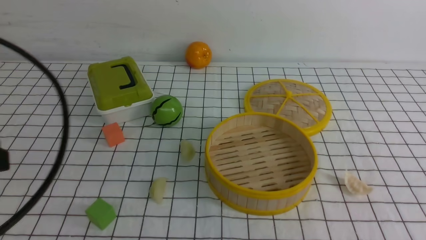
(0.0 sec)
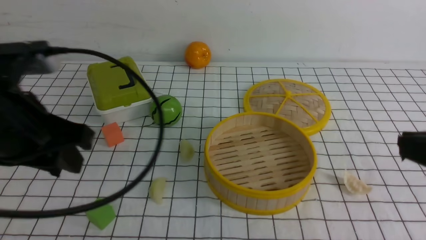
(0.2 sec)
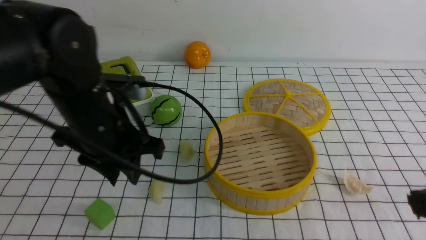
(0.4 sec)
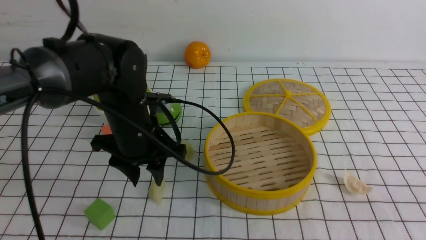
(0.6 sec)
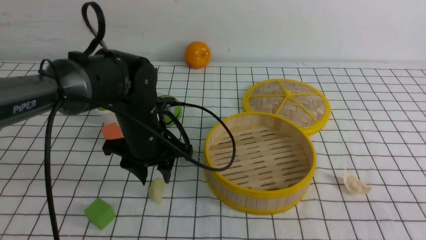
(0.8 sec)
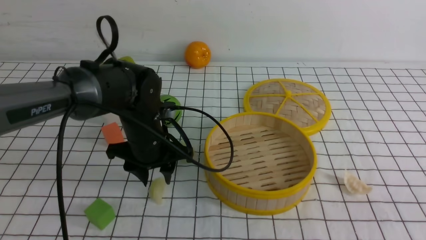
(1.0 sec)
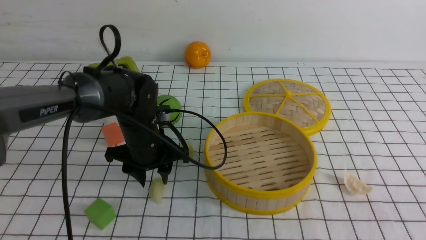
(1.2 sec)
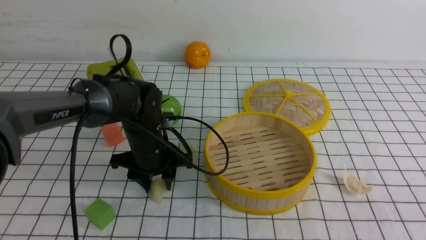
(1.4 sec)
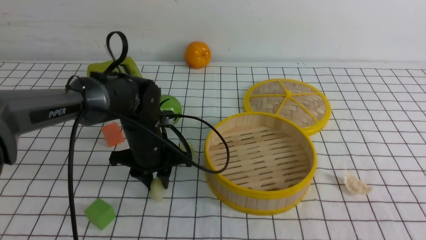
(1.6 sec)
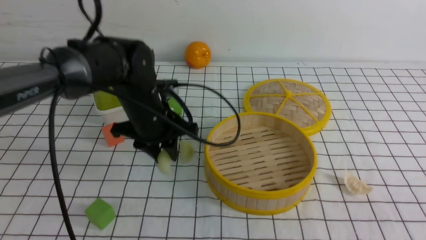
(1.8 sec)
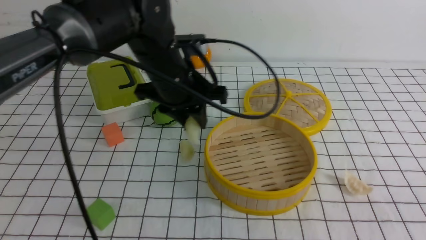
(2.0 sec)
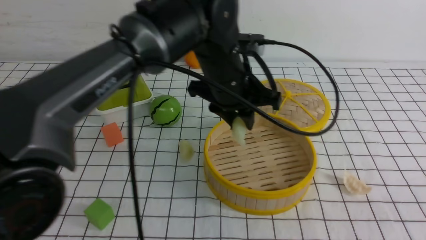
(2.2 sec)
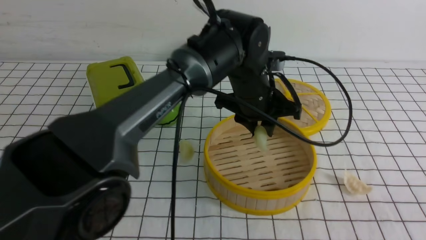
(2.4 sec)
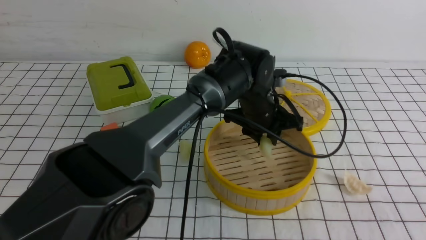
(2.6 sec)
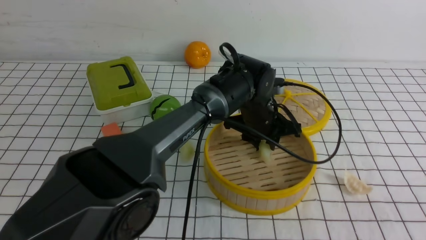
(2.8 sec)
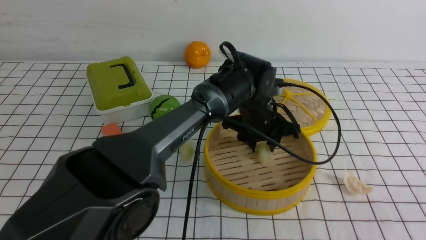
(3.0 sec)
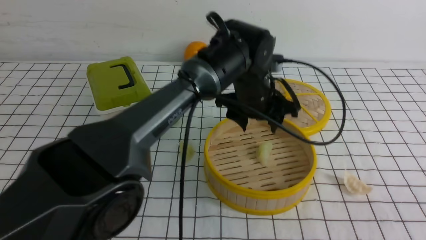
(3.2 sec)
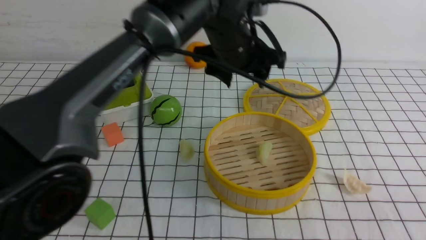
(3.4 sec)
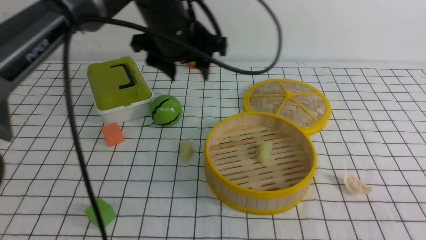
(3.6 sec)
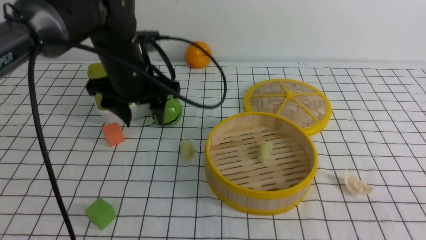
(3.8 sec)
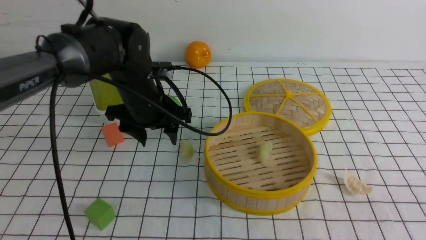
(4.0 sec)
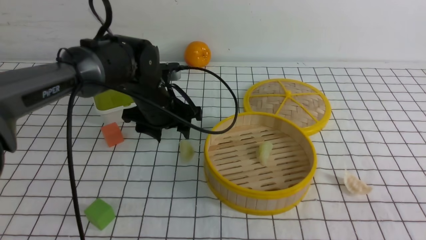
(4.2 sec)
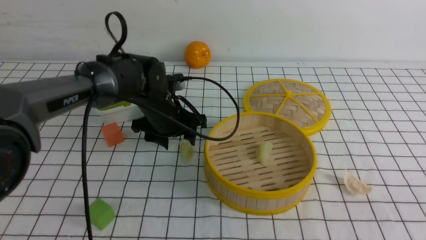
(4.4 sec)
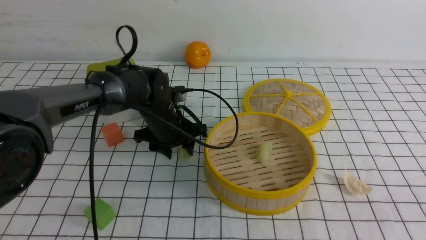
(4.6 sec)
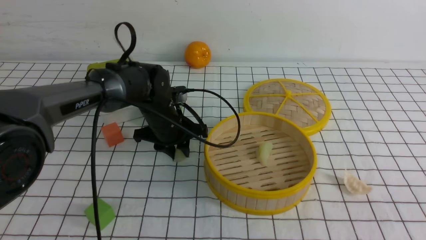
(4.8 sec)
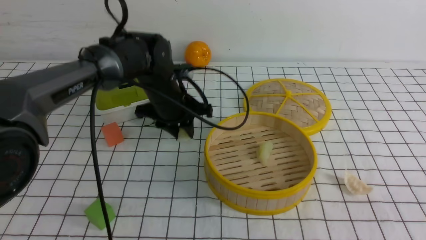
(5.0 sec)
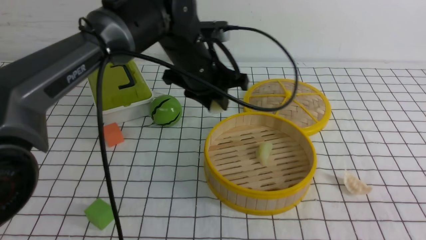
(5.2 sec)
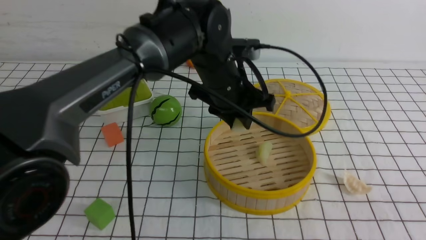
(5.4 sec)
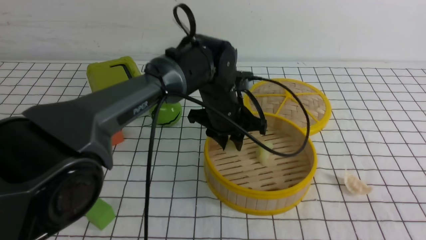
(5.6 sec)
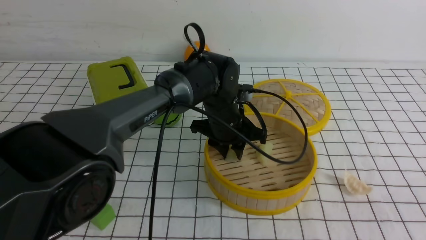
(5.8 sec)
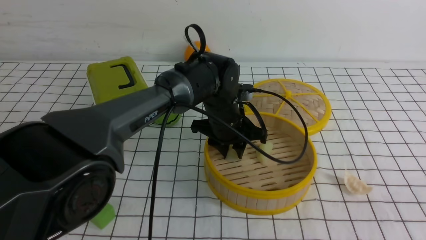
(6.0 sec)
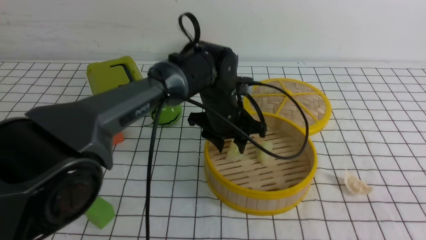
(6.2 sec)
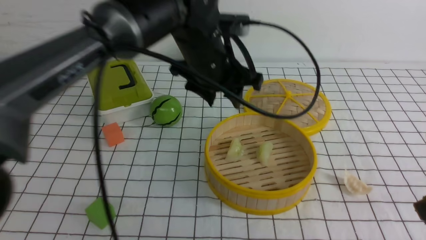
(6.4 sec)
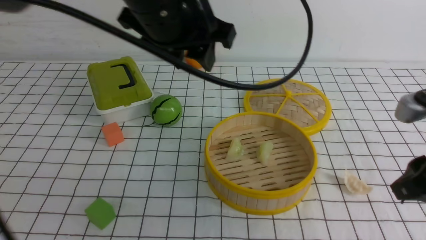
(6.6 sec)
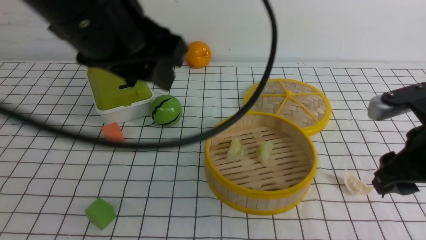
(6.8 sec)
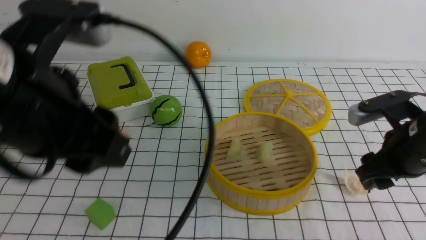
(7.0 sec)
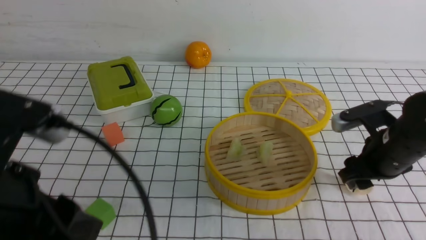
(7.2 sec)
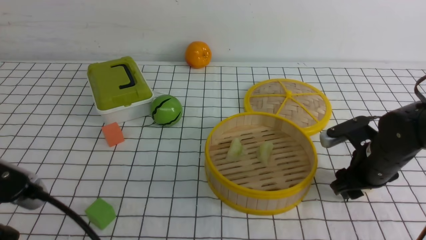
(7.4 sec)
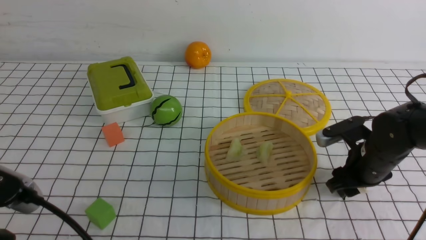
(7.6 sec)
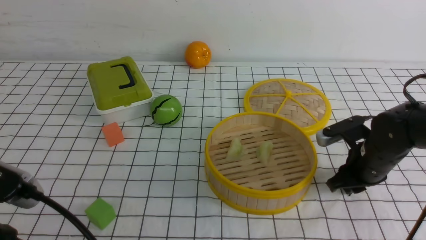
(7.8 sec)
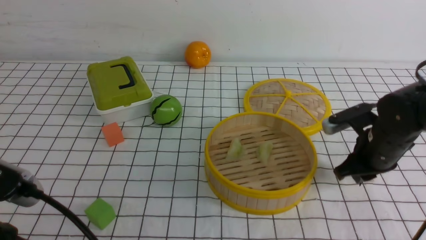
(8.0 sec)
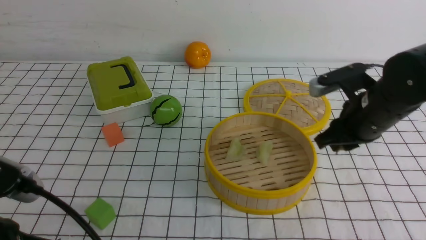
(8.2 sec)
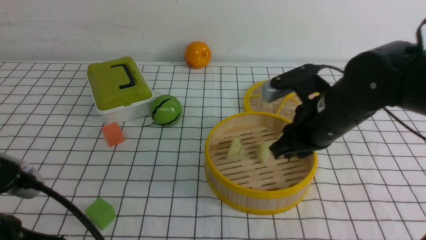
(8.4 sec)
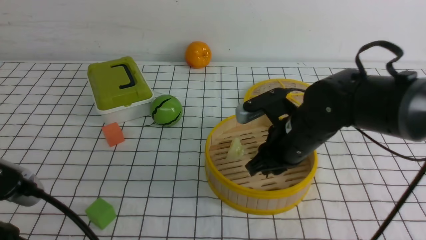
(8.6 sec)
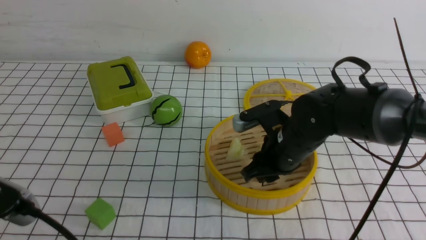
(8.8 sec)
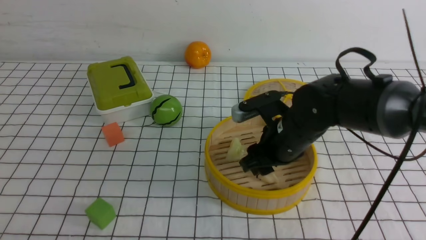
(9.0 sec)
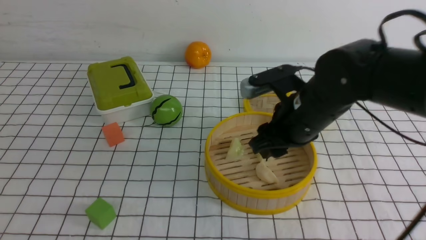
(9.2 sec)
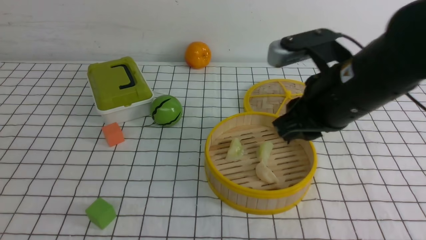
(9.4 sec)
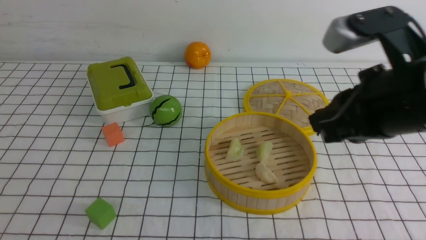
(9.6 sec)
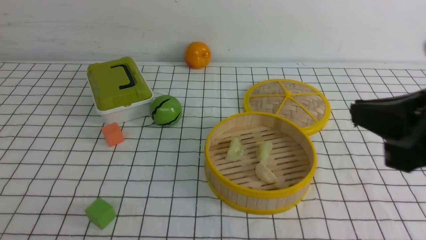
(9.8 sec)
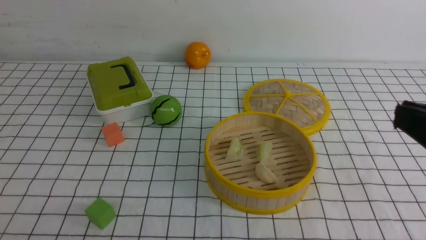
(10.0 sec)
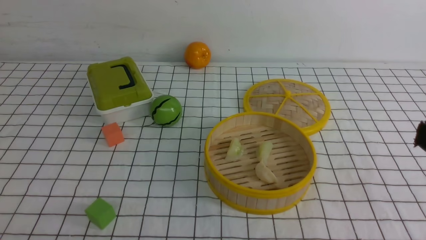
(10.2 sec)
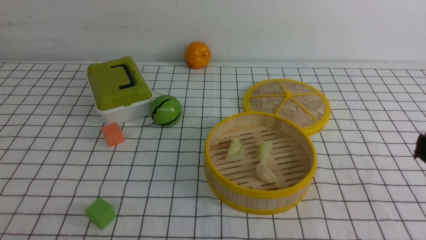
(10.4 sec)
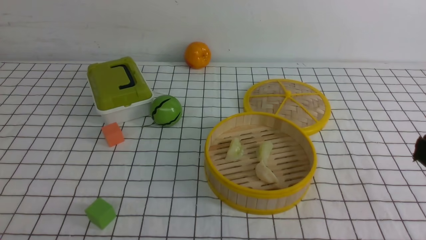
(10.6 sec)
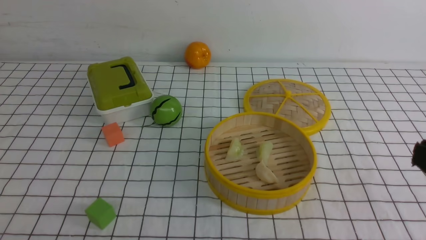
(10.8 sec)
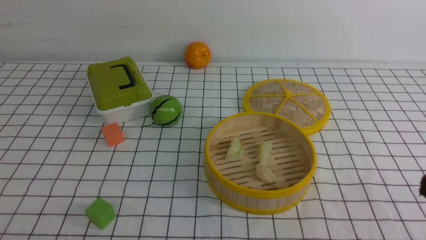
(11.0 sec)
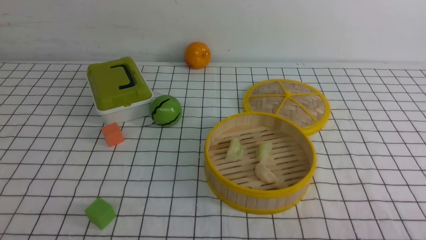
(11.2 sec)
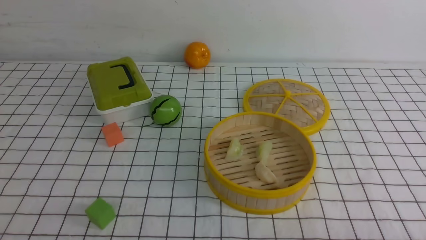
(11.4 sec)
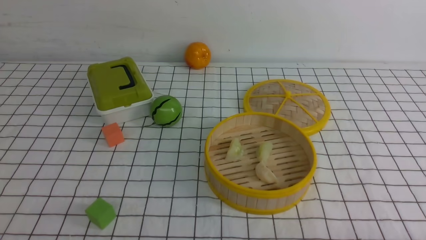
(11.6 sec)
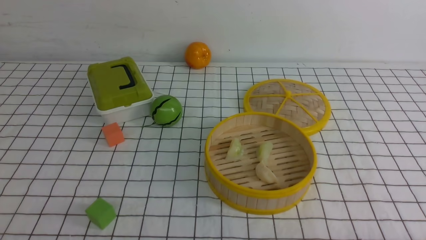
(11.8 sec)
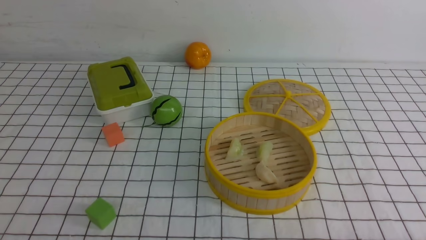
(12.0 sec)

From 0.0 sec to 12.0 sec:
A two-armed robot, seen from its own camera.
Task of the whole recording: put the dumplings into the steamer on the table with the white tablecloth.
Step, from 2.0 sec to 3.4 sec: use the left arm to put the dumpling into the steamer.
Step, from 3.8 sec to 5.2 sec: use the left arm to grab a dumpling.
Step, from 5.6 sec to 6.4 sec: use the left arm to put the dumpling into the steamer.
Step, from 6.6 sec to 8.2 sec: use the right arm to grab a dumpling.
Step, from 8.4 sec to 9.4 sec: use the right arm to put the dumpling into the steamer.
From 0.0 sec to 1.6 sec: The left gripper shifts some 30 cm forward, downward and to the right.
From 1.6 sec to 3.0 sec: The left gripper shifts roughly 20 cm to the right.
From 3.0 sec to 4.4 sec: The left gripper shifts approximately 15 cm to the left.
From 4.4 sec to 6.0 sec: The left gripper moves to the right, about 10 cm, and closes up.
From 6.0 sec to 7.6 sec: The right gripper heads forward and downward, covering roughly 30 cm, and opens up; the left gripper moves backward and to the left, about 40 cm.
From 7.6 sec to 9.0 sec: The right gripper heads to the left and upward, covering approximately 15 cm, and closes and opens again.
From 9.0 sec to 10.4 sec: The left gripper changes place by about 5 cm. Meanwhile the right gripper travels backward, to the right and upward by approximately 30 cm, and closes its fingers.

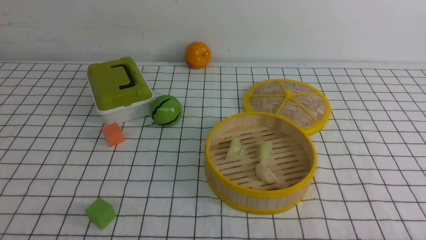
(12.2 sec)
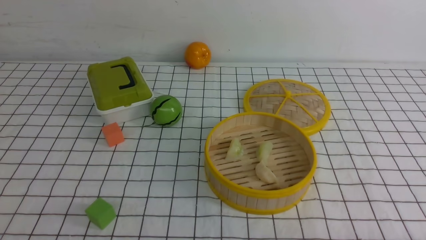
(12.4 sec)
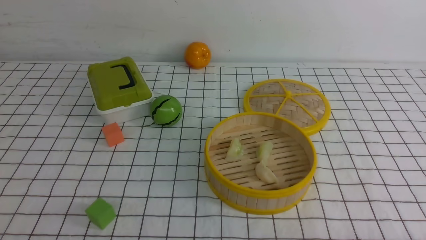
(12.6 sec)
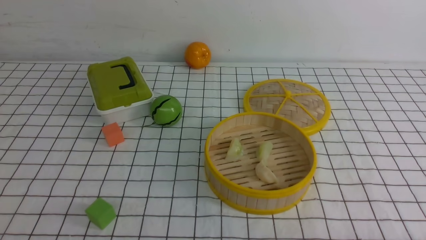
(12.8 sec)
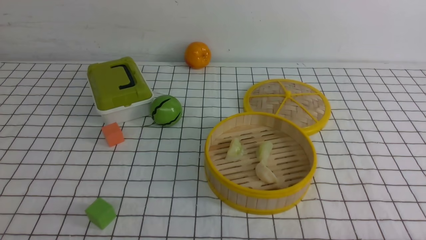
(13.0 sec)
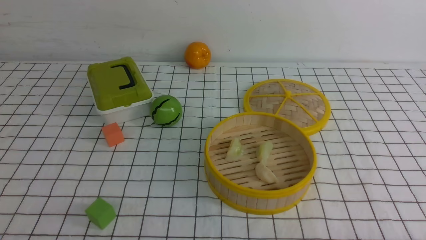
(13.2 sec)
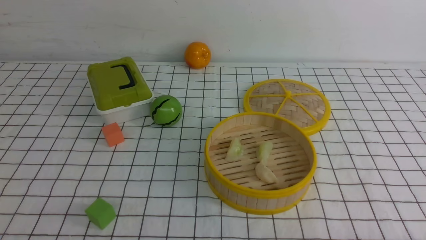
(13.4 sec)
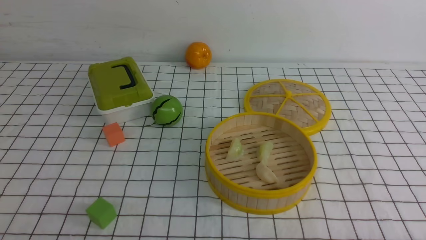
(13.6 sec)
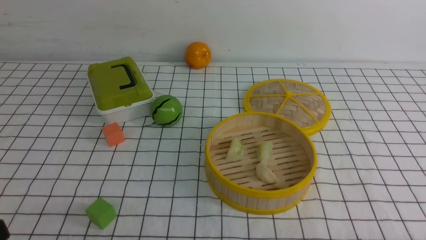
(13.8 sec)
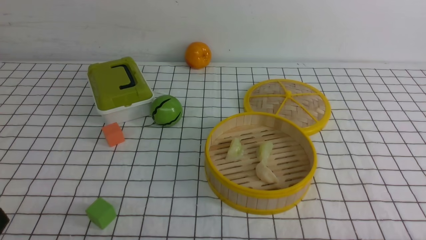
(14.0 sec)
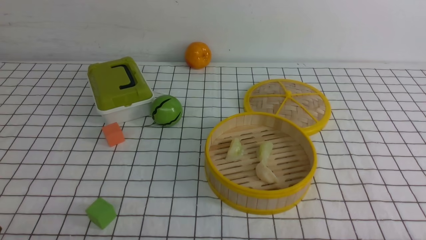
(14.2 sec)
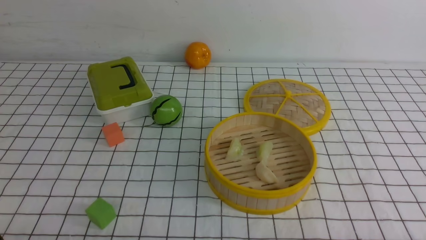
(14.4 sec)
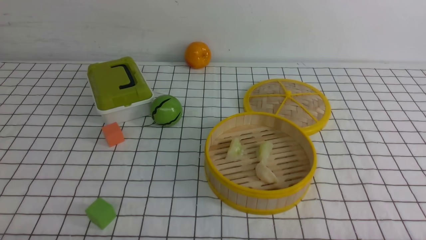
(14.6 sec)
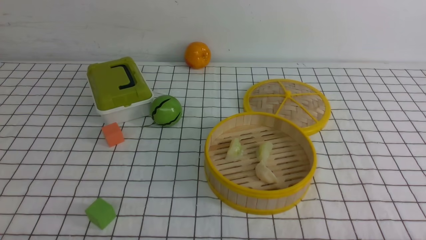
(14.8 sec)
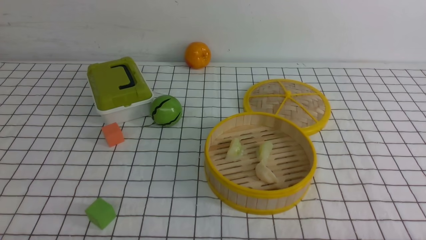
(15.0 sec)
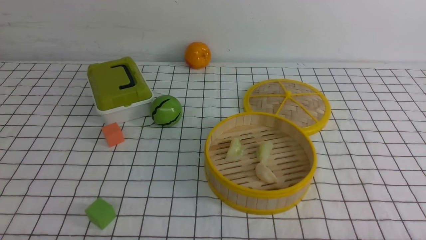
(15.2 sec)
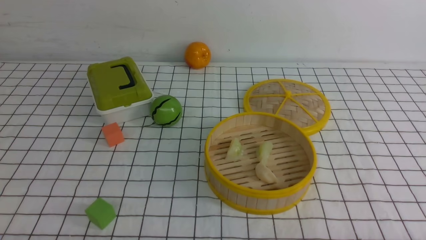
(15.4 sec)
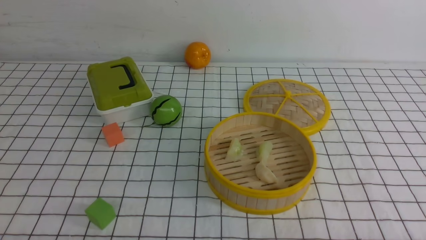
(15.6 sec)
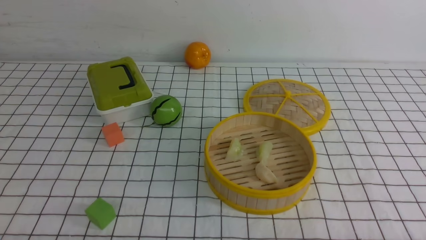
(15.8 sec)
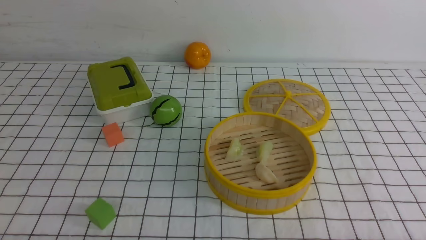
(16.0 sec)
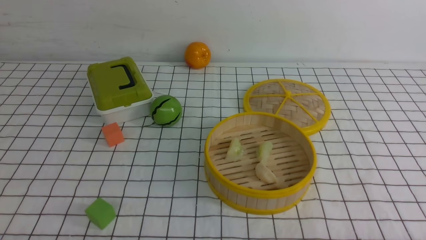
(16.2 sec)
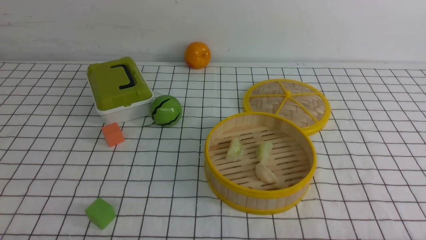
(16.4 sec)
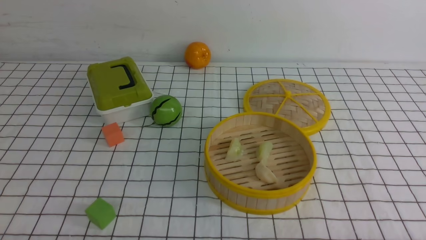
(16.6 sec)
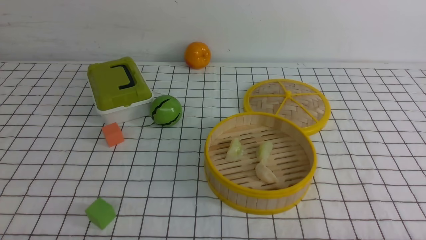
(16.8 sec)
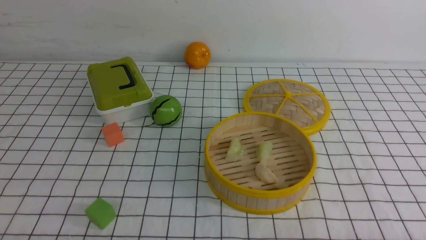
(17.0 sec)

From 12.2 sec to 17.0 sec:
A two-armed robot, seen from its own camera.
Task of the whole recording: put the dumplings into the steamer on the table with the white tablecloth.
From 15.4 sec to 17.0 sec: The two grippers keep their place.
